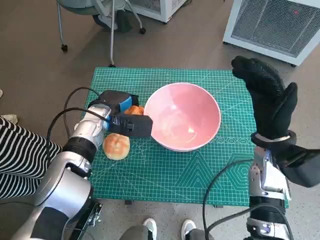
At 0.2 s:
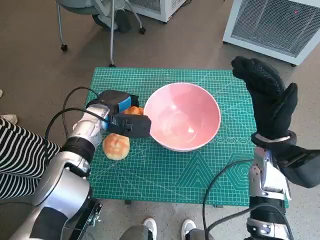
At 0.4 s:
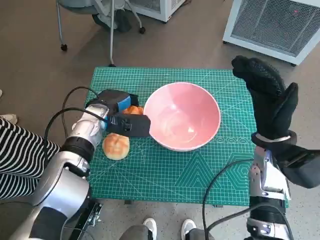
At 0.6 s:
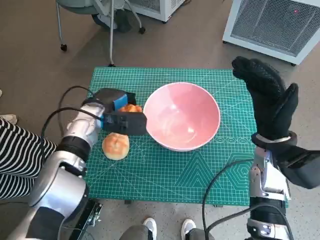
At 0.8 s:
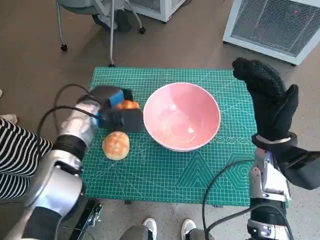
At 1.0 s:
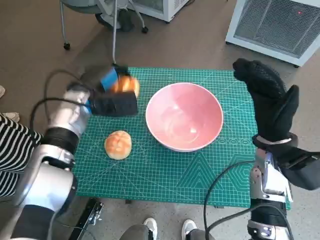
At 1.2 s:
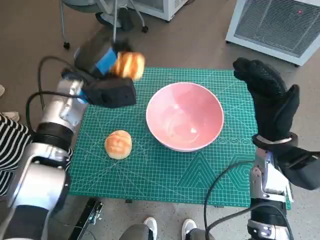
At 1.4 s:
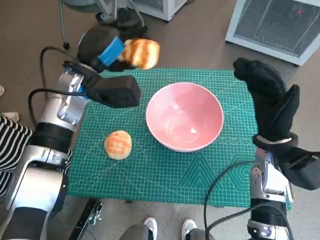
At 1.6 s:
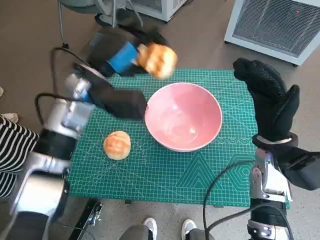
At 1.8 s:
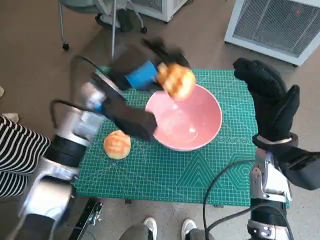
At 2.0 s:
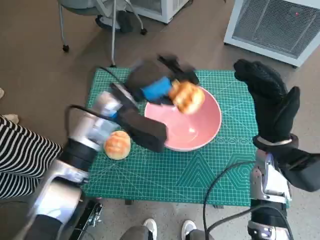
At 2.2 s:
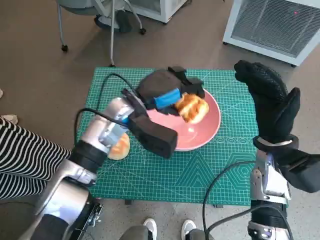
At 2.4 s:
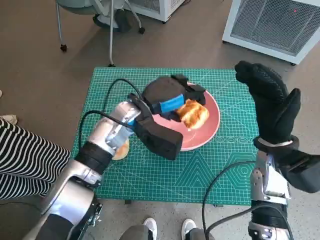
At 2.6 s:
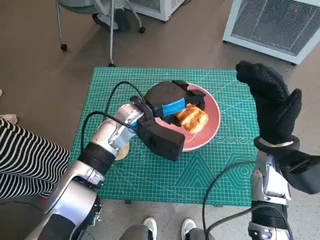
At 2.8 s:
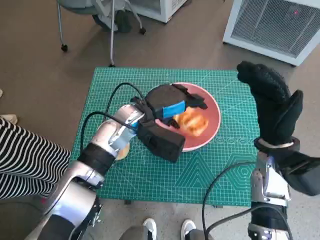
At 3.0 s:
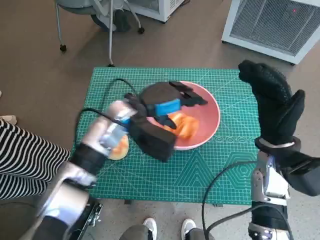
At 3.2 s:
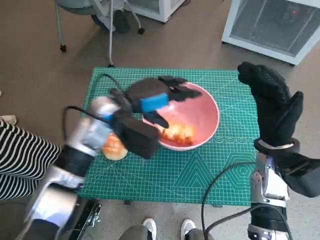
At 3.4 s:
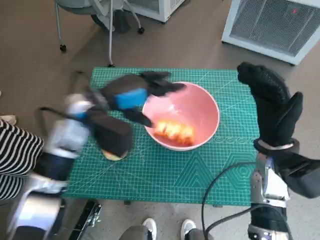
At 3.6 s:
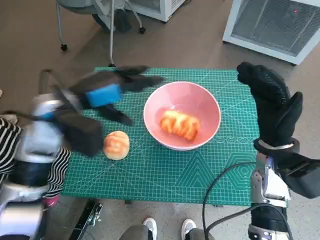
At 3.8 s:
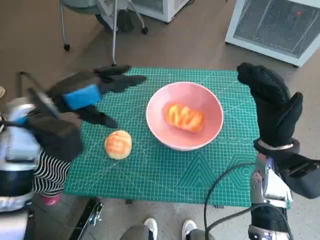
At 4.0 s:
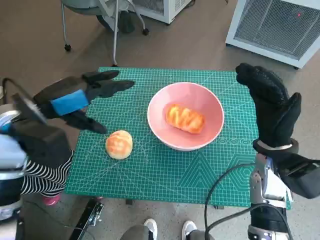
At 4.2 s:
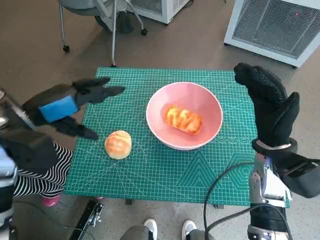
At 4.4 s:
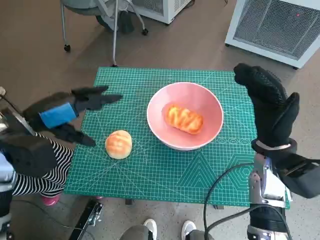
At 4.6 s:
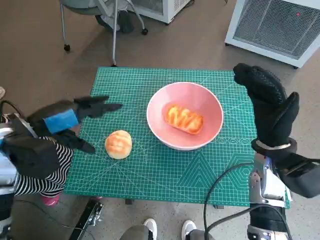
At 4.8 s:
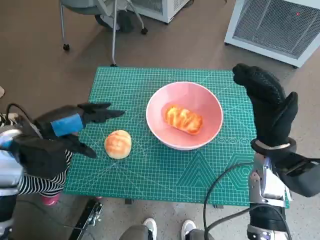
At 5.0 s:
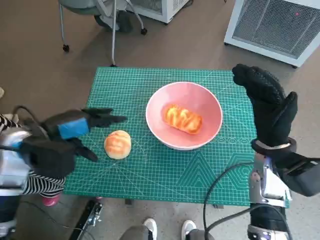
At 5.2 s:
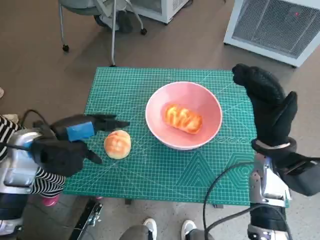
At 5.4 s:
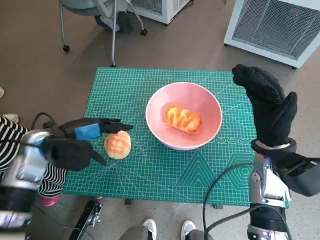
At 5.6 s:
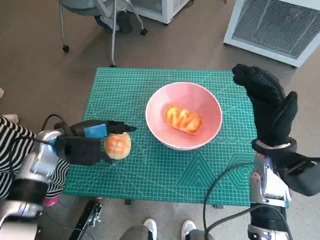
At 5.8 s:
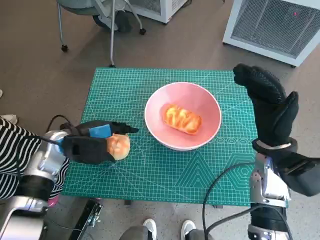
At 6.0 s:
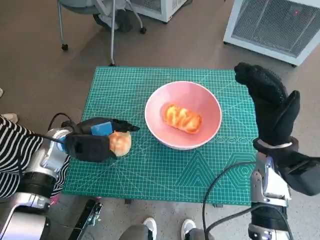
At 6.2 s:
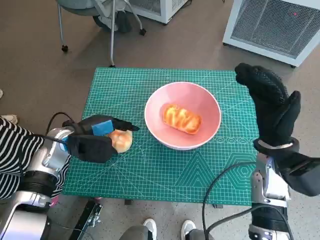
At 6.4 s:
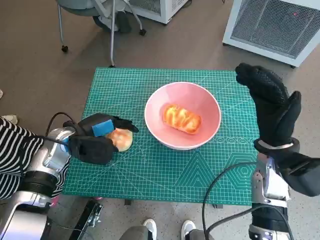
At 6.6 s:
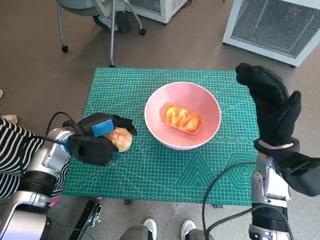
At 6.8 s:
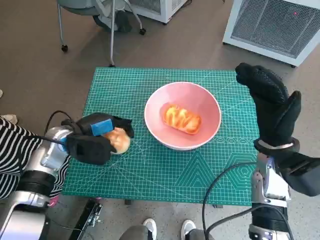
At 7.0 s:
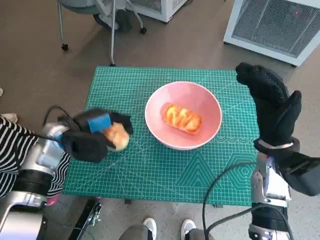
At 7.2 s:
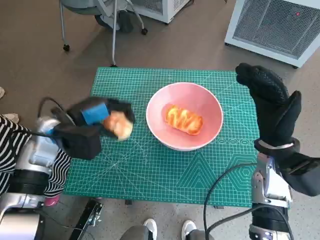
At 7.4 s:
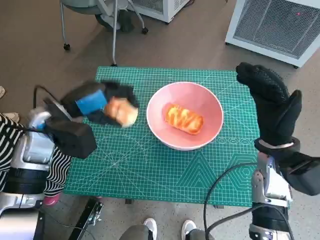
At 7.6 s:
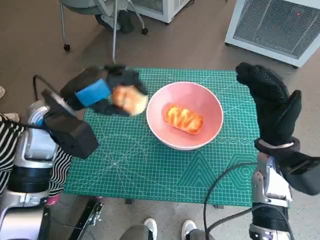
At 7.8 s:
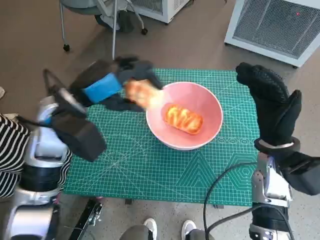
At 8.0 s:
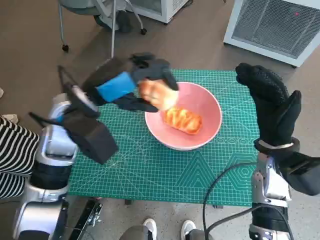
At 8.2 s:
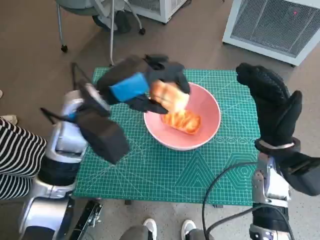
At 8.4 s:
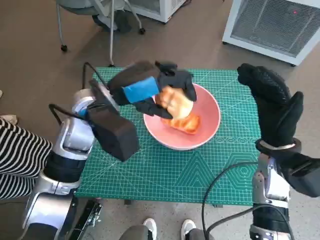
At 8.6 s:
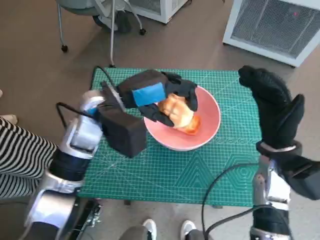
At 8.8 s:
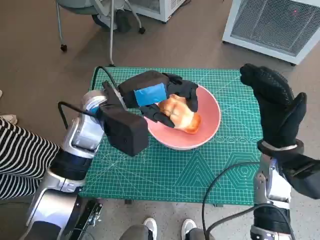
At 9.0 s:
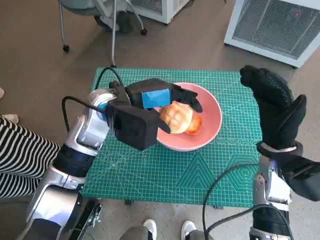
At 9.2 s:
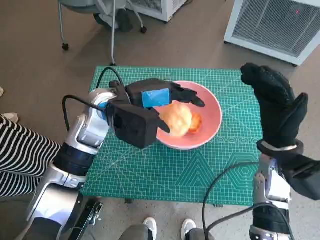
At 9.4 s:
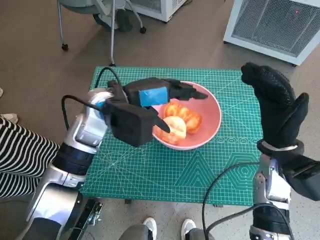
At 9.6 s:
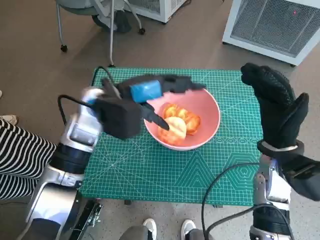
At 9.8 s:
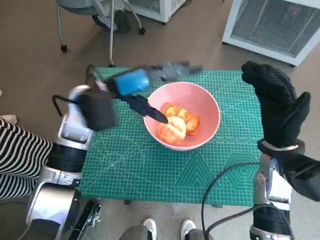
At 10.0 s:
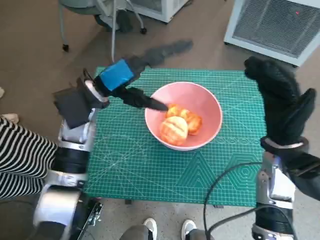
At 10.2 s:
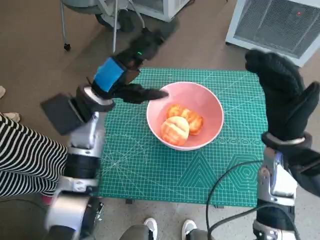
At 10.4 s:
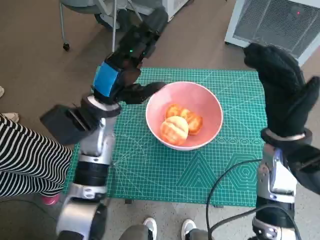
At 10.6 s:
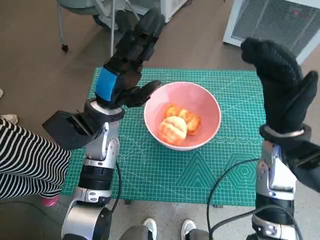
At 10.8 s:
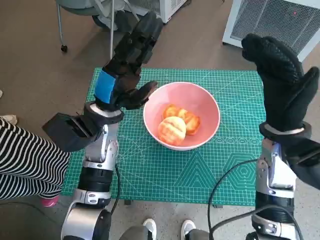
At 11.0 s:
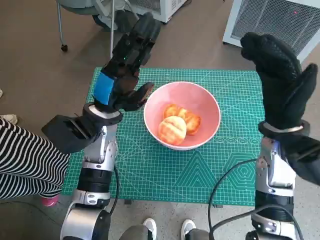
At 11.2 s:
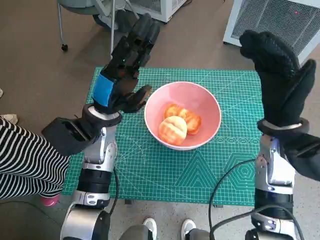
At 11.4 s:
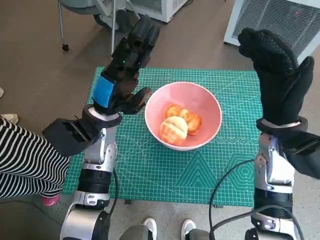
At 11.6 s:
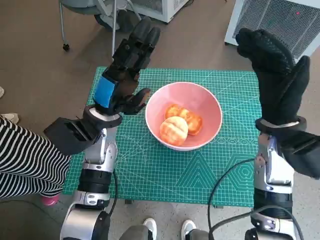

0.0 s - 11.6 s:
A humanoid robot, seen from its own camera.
Task of the whole recording: Push the bowl into the center of the table and put the bread into the bowl.
Step, 0.0 s - 3.2 s: Place the long bread in pink bowl with left hand.
Step, 3.6 s - 6.4 s: Grasp the round bread with left hand.
Step, 6.8 s - 9.6 s: Place the round bread in pink bowl with left hand.
0.0 s - 1.4 s: The left hand is displaced upward by some 10 cm.
1.4 s - 2.8 s: The left hand goes roughly 10 cm to the right and downward.
2.8 s - 4.4 s: The left hand goes about 20 cm to the left and backward.
4.4 s - 5.8 s: The left hand moves downward, about 10 cm.
5.8 s - 7.2 s: The hands make only small movements.
7.2 s - 8.8 s: The left hand is displaced to the right and upward by about 15 cm.

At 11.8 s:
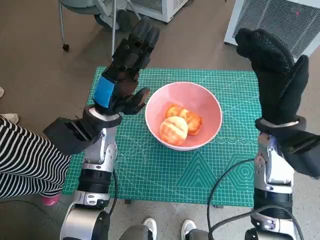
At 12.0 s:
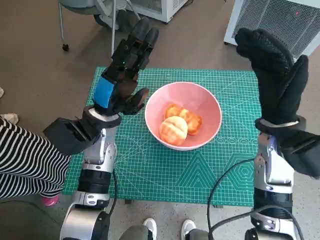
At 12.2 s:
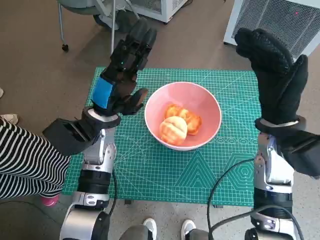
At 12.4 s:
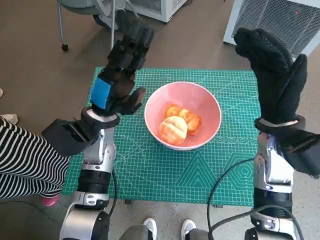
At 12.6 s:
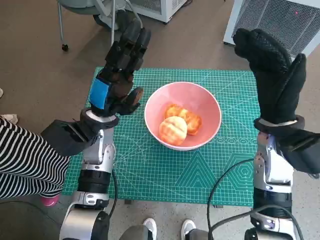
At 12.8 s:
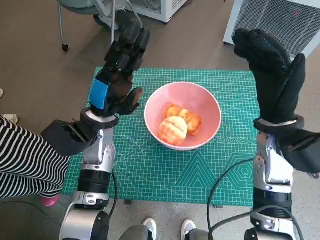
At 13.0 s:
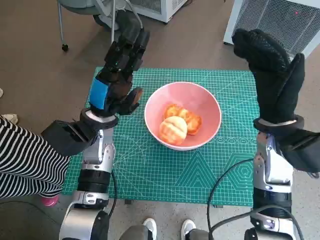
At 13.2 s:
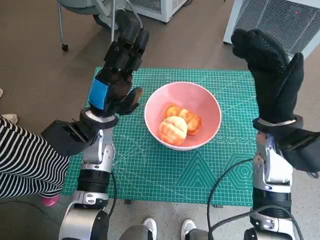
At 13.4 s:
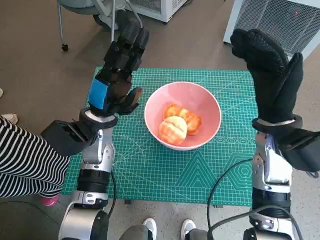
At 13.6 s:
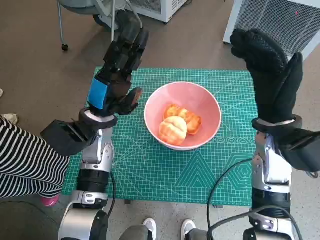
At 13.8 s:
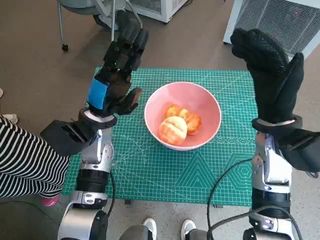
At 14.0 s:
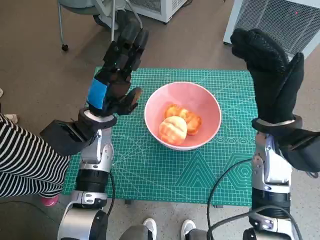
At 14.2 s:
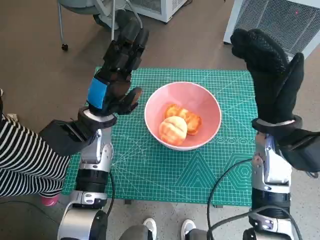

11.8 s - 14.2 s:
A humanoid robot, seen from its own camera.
Task of the whole recording: Push the bowl into the center of the table and put the bread into the bowl.
11.8 s - 13.0 s: Both hands stay put.
13.0 s - 14.2 s: Both hands stay about where they are.

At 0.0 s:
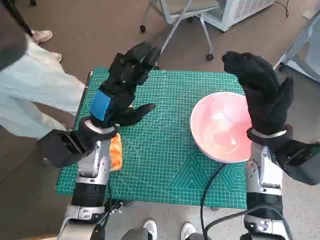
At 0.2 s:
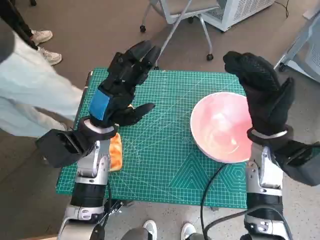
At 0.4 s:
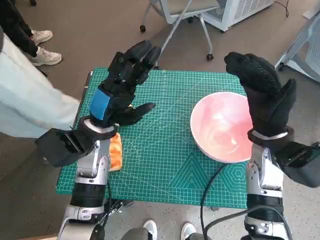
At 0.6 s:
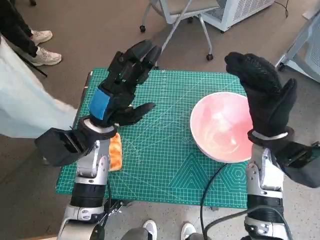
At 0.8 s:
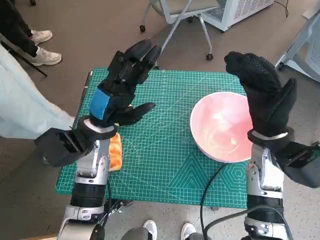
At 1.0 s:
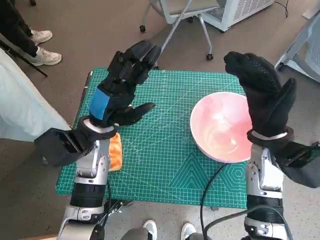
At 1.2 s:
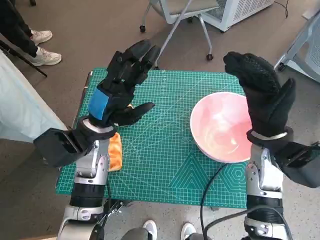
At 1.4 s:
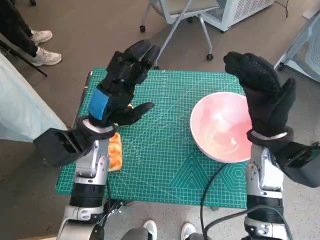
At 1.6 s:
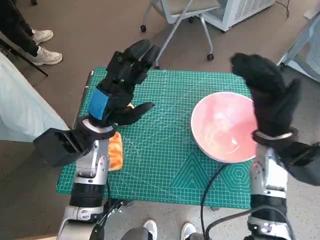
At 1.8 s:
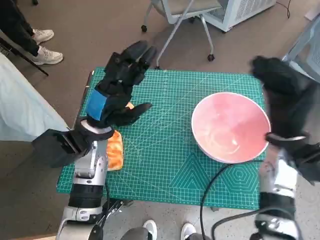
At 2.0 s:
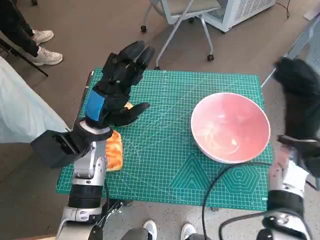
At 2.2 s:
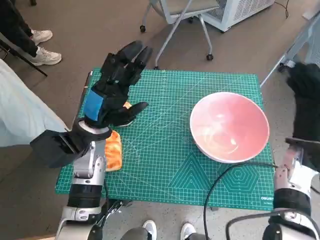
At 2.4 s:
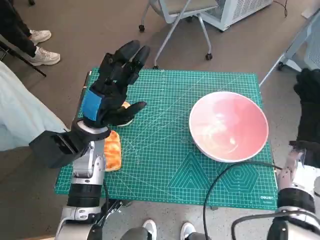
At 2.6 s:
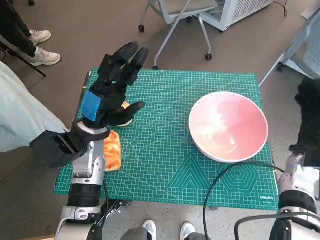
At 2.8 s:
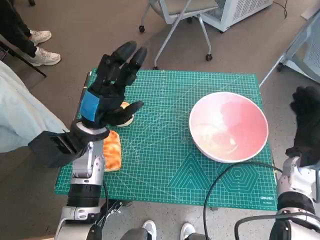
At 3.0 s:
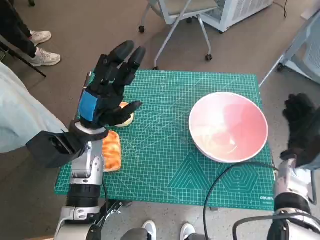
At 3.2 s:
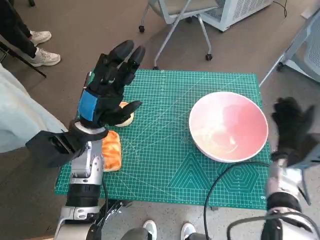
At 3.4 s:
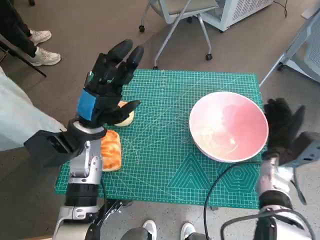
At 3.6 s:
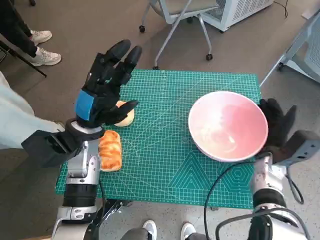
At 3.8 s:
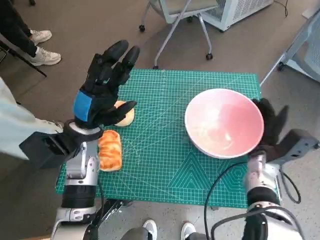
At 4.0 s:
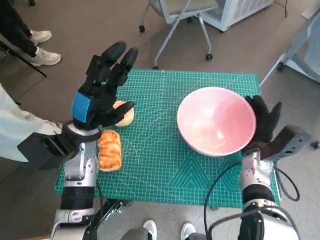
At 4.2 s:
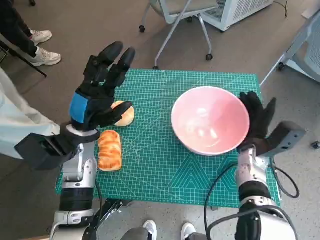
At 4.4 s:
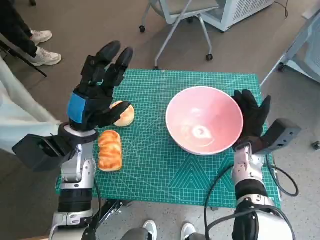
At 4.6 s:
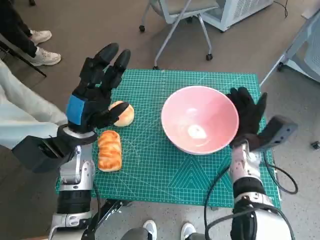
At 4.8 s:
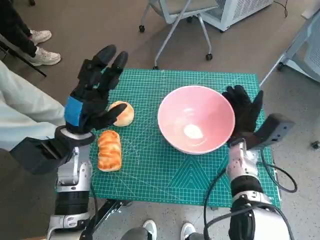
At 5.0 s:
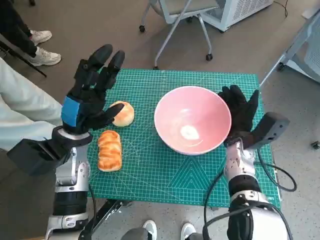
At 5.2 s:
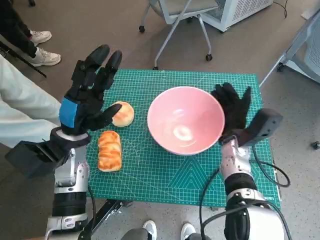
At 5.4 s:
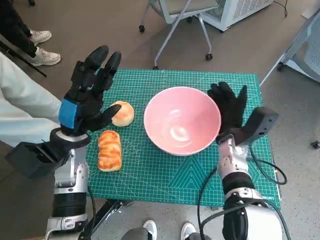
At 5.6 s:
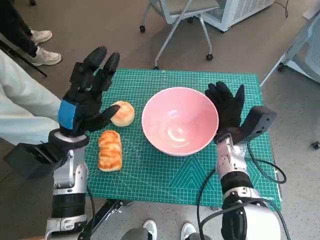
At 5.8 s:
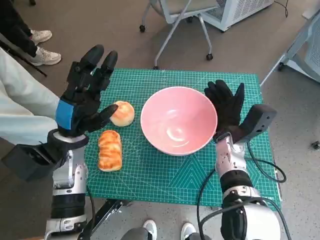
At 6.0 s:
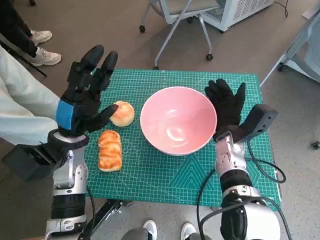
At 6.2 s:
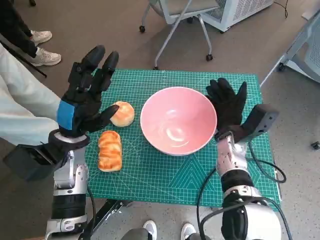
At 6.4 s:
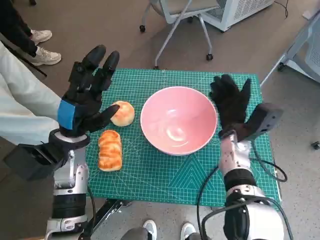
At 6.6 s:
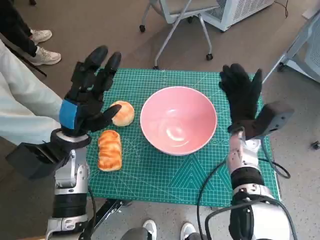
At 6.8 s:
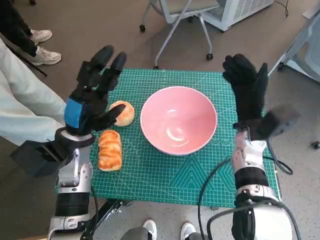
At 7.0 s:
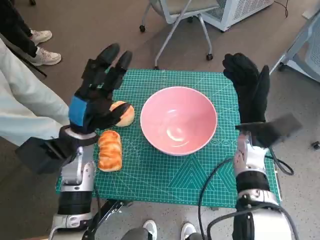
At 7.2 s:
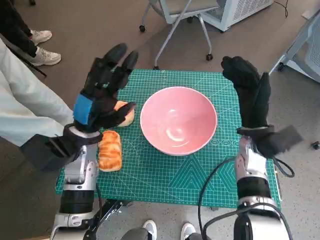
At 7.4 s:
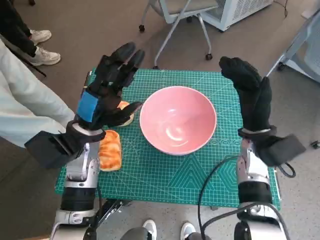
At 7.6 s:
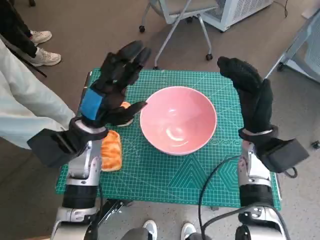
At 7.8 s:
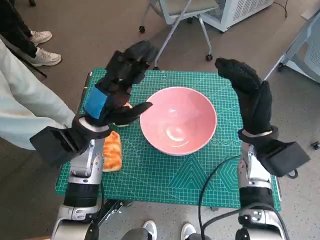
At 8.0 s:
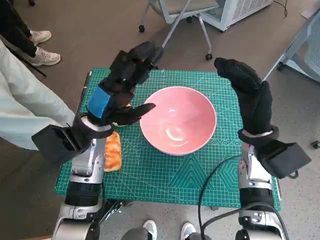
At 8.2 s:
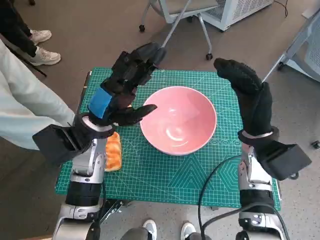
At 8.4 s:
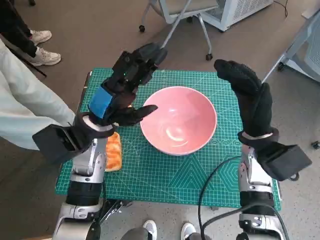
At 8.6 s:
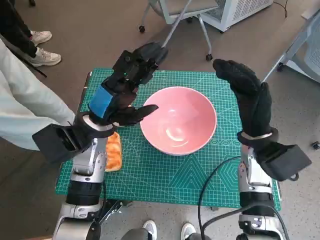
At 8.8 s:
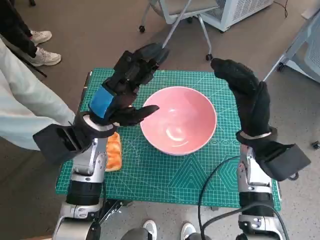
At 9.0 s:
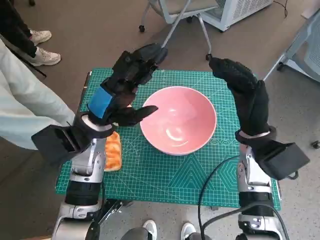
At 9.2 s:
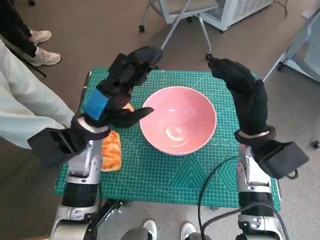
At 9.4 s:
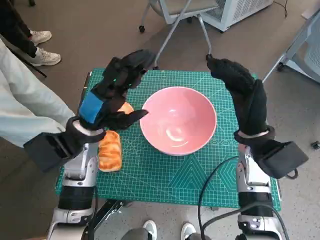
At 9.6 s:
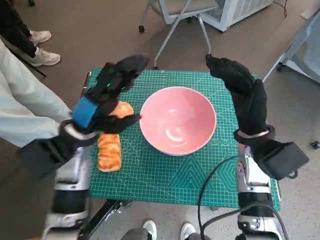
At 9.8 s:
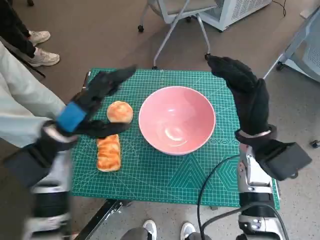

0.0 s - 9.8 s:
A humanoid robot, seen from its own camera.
Task of the whole recording: Push the bowl into the center of the table and put the bread into the bowl.
Step, 0.0 s - 6.6 s: Move the pink bowl to the center of table with right hand.
1.4 s - 2.8 s: The right hand travels to the right and downward by approximately 15 cm.
2.8 s - 4.2 s: The right hand travels to the left by some 10 cm.
4.2 s - 5.6 s: The right hand shifts about 5 cm to the left.
5.6 s - 7.0 s: The right hand ends up some 5 cm from where it was.
8.4 s - 9.8 s: The left hand moves to the left, roughly 5 cm.